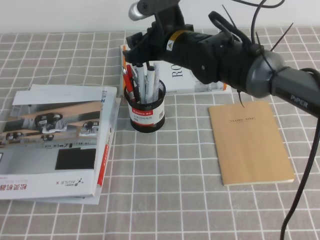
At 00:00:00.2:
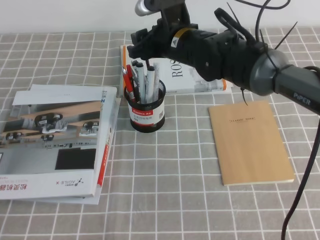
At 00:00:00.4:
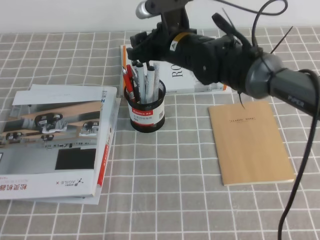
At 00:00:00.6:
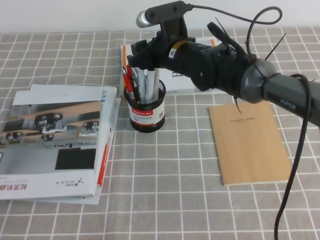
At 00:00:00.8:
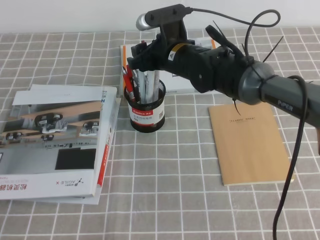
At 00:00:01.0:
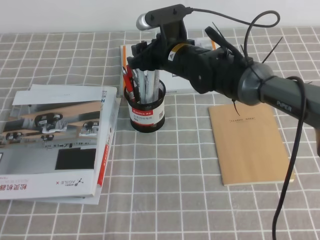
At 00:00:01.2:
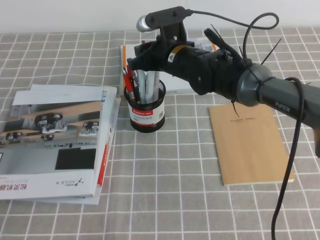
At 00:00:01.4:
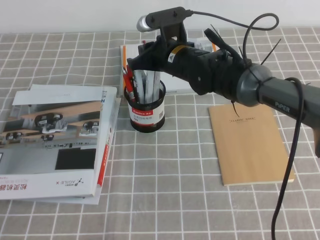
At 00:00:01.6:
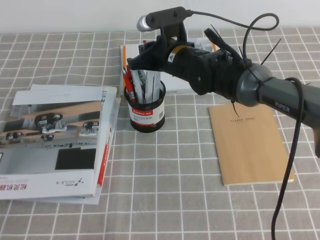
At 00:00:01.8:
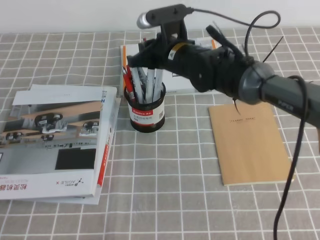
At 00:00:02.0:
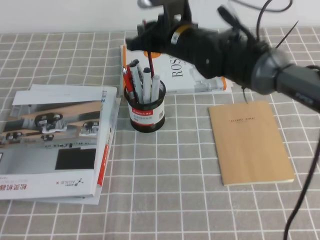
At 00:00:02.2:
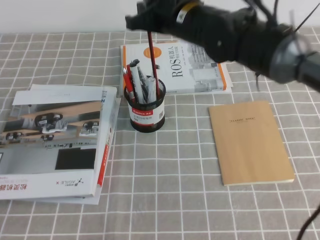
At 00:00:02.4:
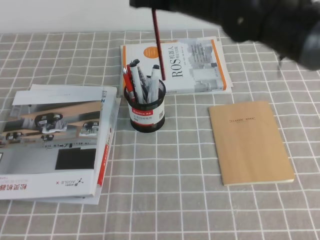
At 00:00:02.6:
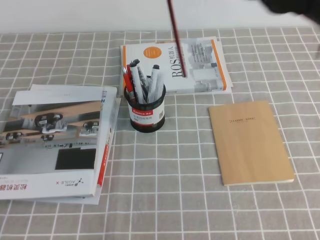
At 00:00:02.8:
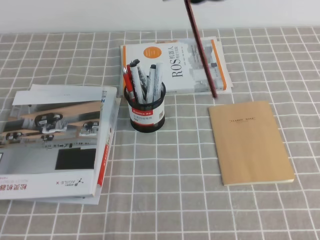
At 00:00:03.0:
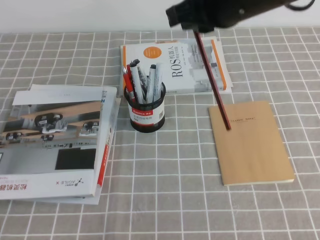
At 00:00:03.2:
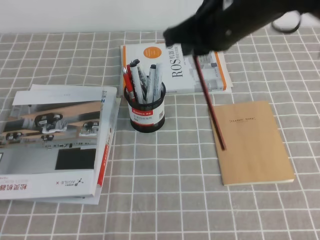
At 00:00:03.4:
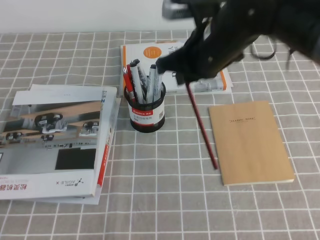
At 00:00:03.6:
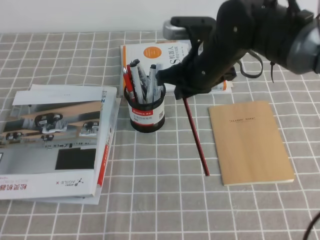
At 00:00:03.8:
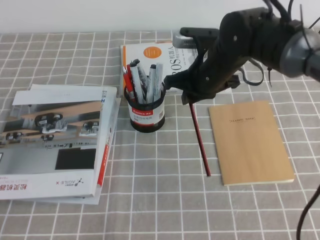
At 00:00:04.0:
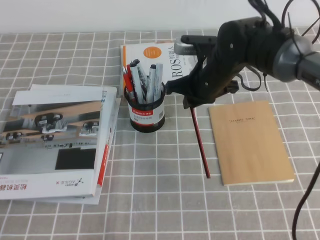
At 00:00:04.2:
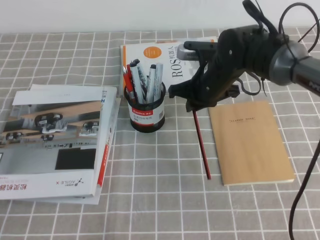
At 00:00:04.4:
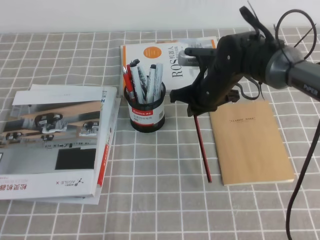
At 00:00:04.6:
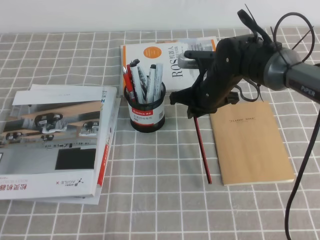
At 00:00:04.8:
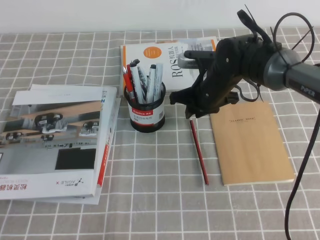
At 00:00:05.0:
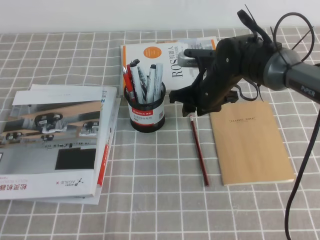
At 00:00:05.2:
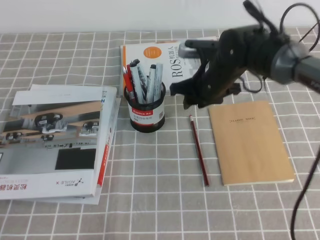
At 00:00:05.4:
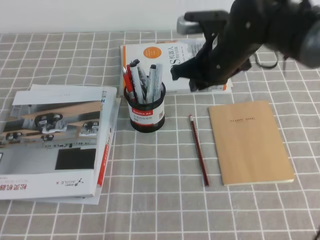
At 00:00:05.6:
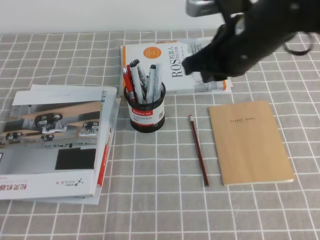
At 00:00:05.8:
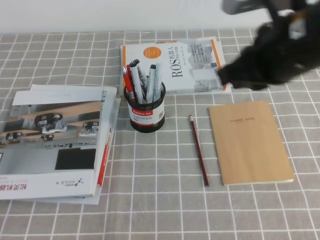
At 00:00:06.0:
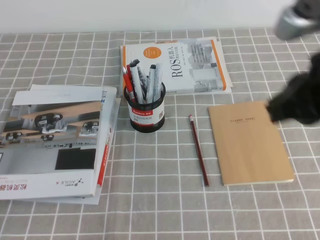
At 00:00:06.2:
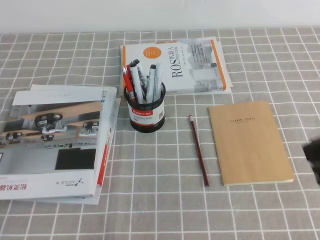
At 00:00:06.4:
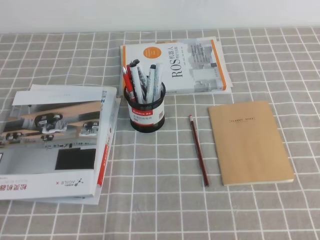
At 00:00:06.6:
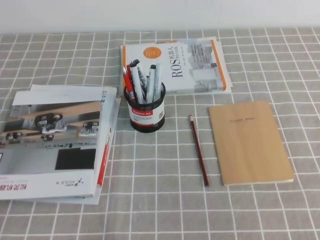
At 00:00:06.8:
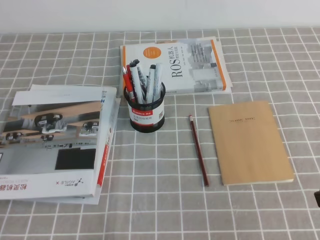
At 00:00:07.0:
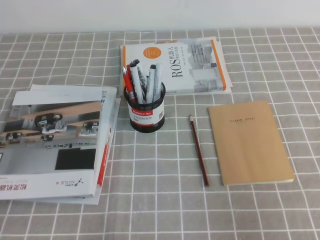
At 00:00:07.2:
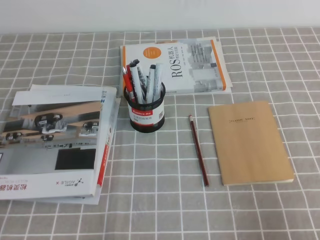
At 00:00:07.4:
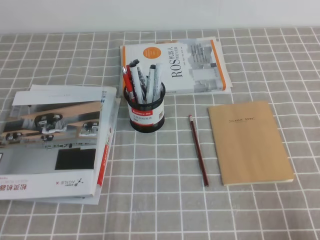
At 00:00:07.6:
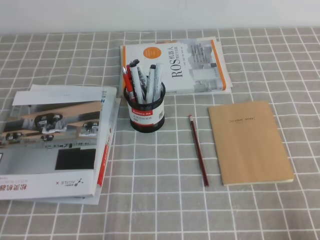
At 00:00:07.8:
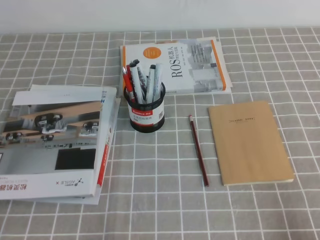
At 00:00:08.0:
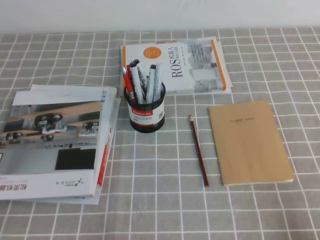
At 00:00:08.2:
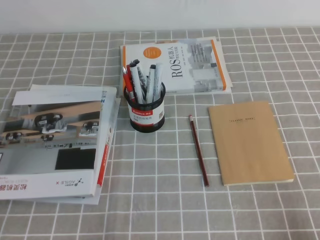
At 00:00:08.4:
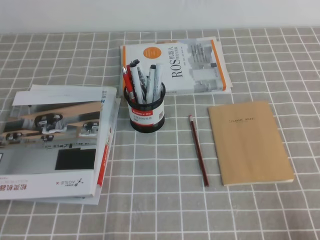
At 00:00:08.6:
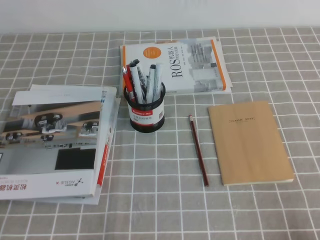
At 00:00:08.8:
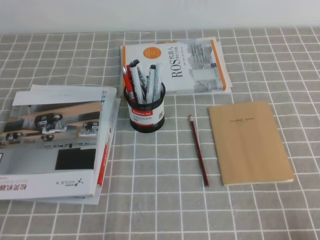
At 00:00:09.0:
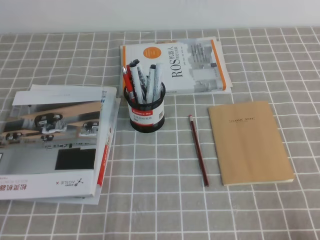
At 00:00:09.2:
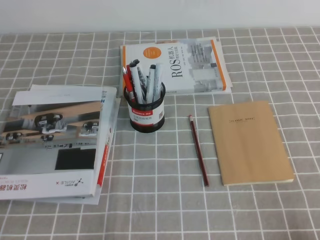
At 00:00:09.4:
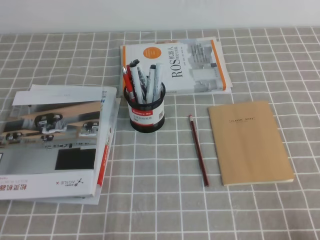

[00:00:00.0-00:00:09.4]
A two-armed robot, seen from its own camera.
Step, 00:00:00.0 to 00:00:09.4: Pick up the pen from the pen holder.
00:00:00.0 to 00:00:01.6: The right gripper closes.
00:00:01.6 to 00:00:03.2: The right gripper heads upward, backward and to the right, covering approximately 20 cm.
00:00:03.2 to 00:00:04.8: The right gripper goes approximately 20 cm downward and forward.
00:00:04.8 to 00:00:06.2: The right gripper moves backward, upward and to the right, some 35 cm.
00:00:06.2 to 00:00:07.8: The right gripper is displaced downward, backward and to the right by approximately 25 cm.
